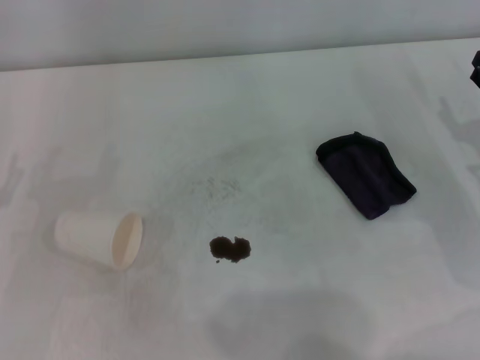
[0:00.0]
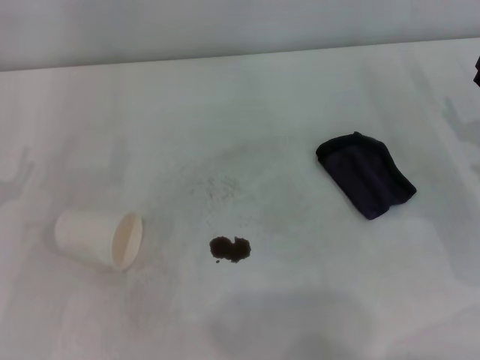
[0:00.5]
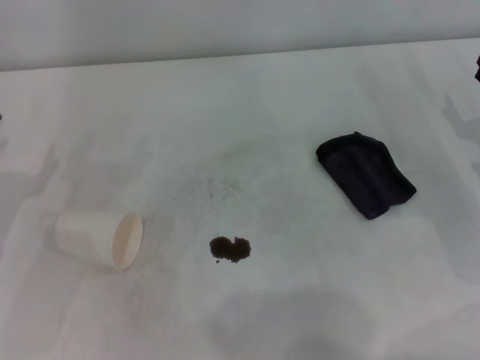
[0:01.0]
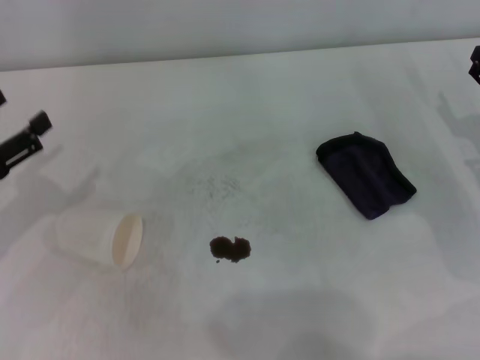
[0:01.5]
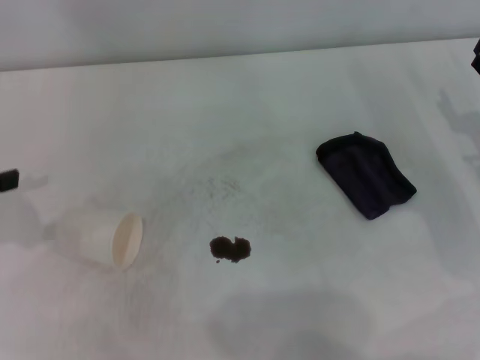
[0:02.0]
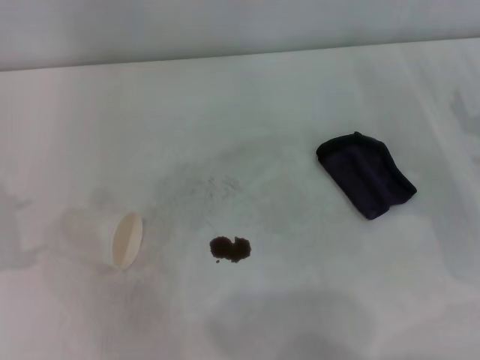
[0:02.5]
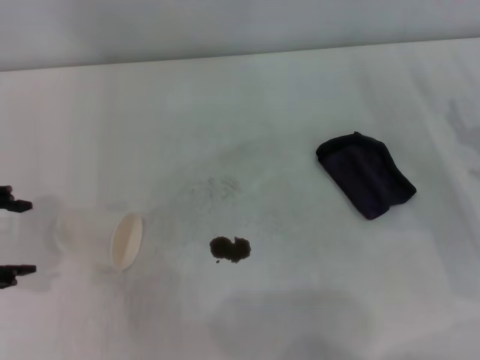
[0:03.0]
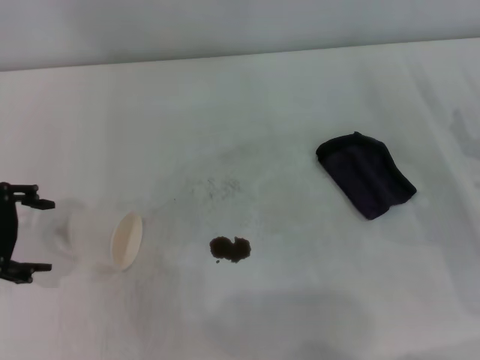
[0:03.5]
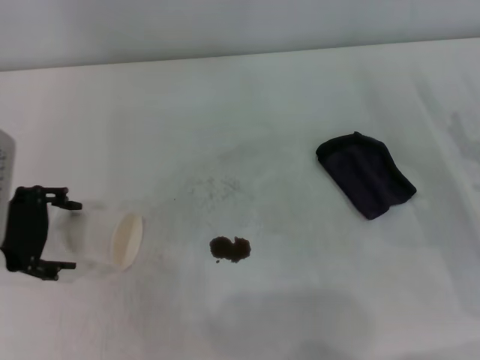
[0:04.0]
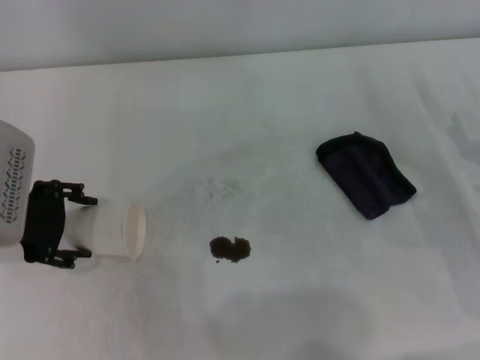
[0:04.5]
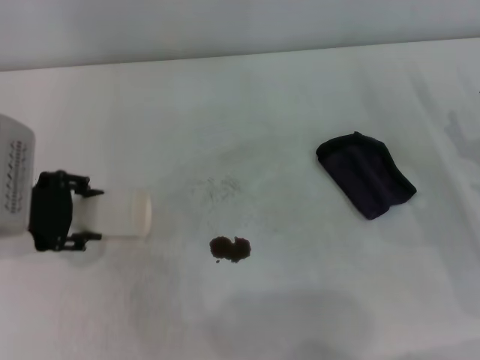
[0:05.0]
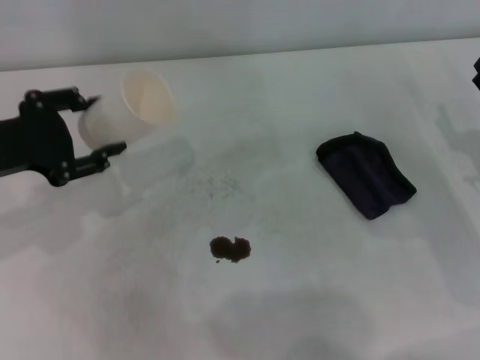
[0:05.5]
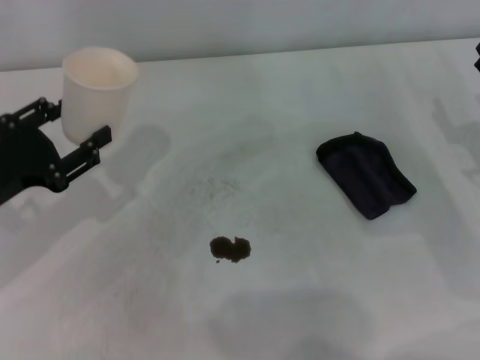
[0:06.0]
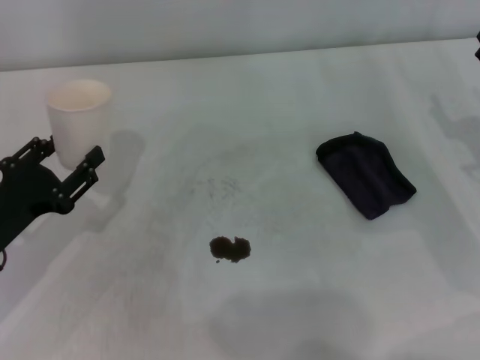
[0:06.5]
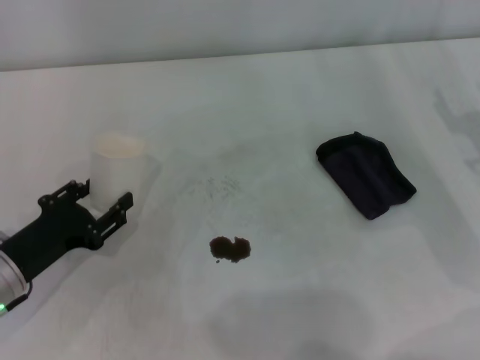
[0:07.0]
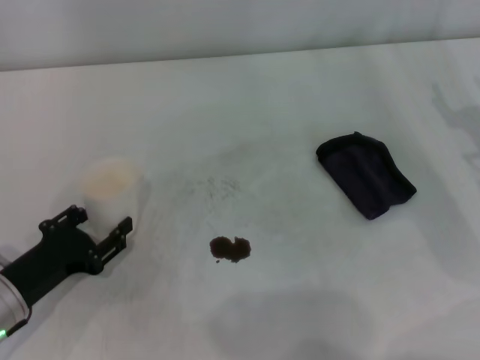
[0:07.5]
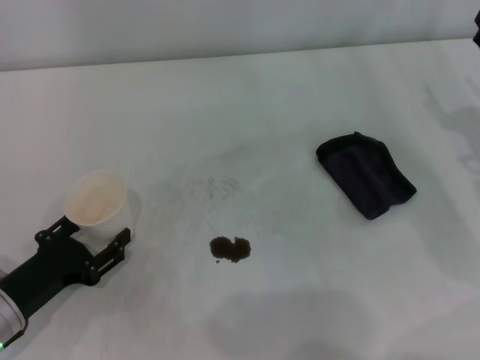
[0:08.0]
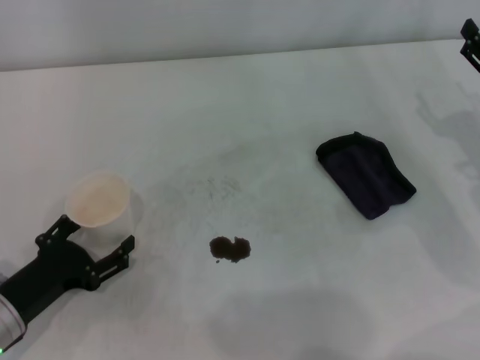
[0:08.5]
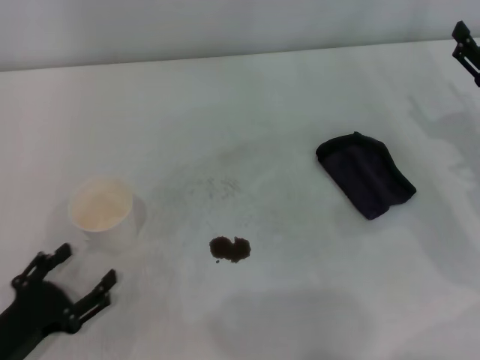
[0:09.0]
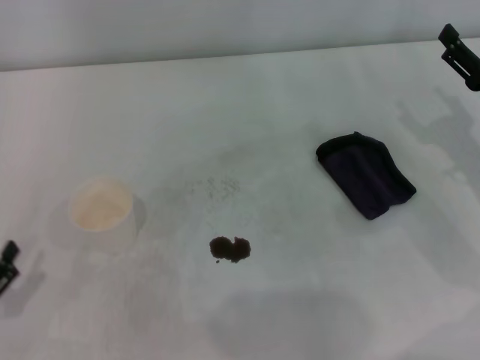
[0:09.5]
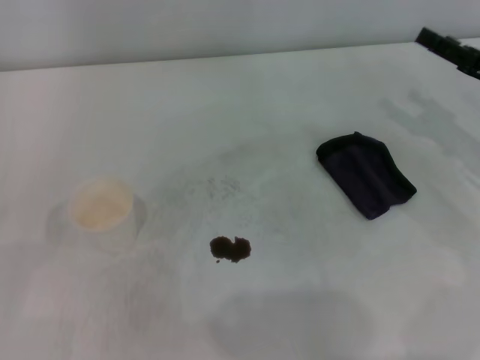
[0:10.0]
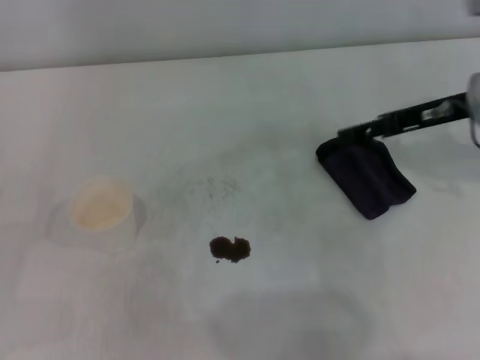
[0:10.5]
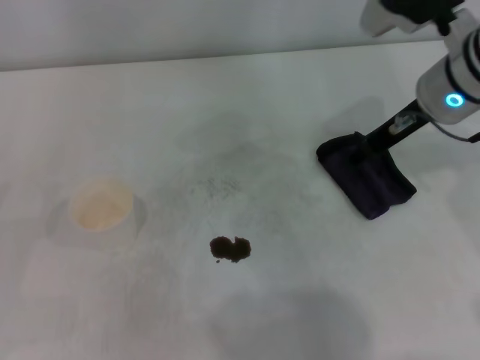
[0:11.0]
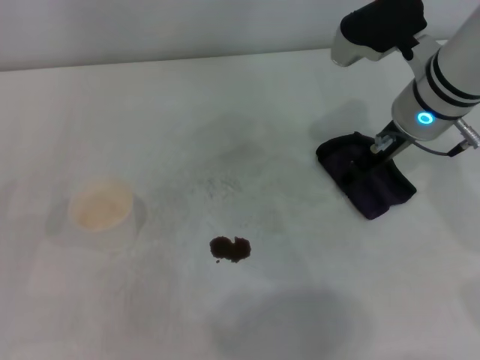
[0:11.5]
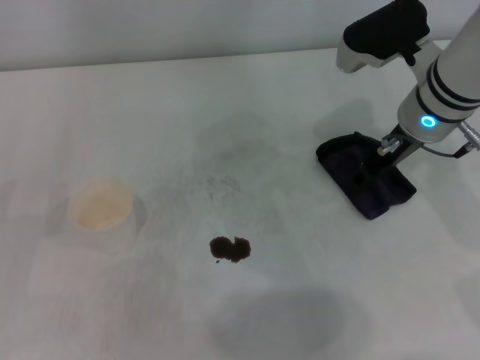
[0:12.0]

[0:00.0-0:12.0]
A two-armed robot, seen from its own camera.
Step, 0:00.0 to 0:04.5: Grasp the paper cup with the left gripper.
Step, 0:05.0 to 0:08.0: Stand the paper cup upright with the left gripper.
0:02.0 to 0:04.0: The left gripper moves to the right, about 10 cm.
0:04.0 to 0:06.0: The left gripper moves roughly 5 cm, and closes up.
0:06.0 to 0:08.0: The left gripper travels downward and backward by some 10 cm, and opens.
0:08.0 to 0:10.0: The left gripper heads to the left and backward, covering about 10 cm, and opens up.
0:10.0 to 0:12.0: The right gripper moves to the left, about 15 cm.

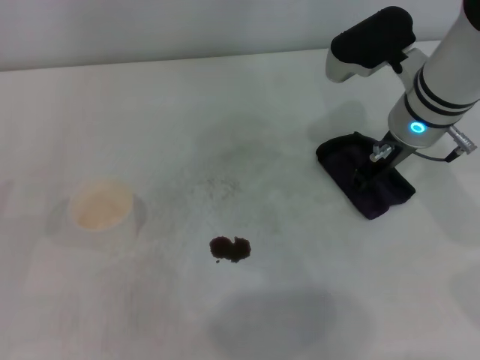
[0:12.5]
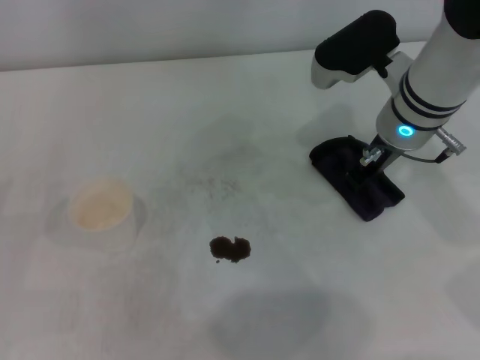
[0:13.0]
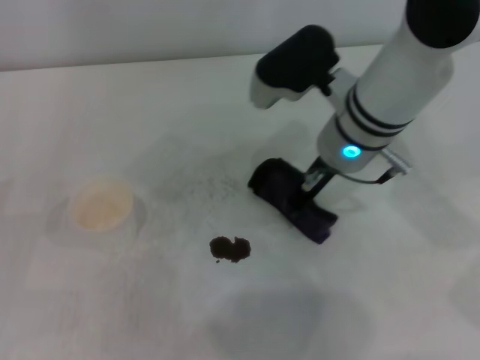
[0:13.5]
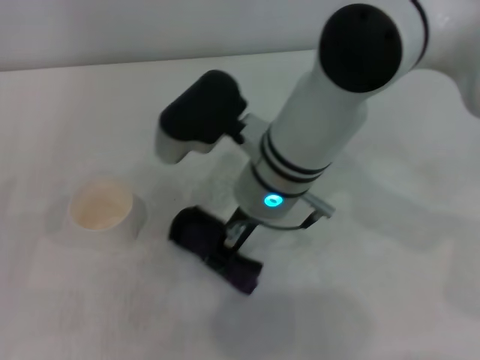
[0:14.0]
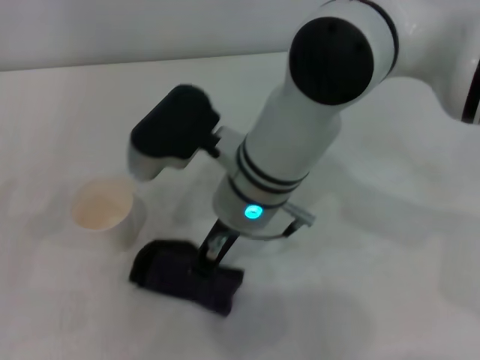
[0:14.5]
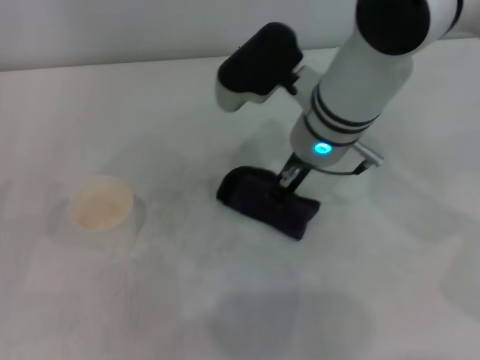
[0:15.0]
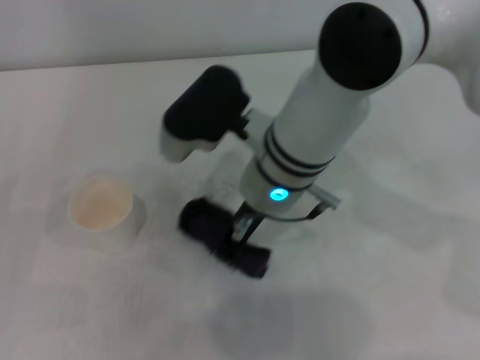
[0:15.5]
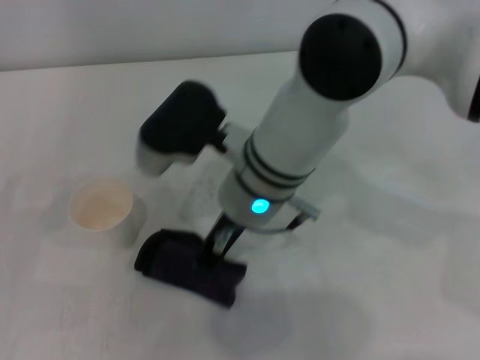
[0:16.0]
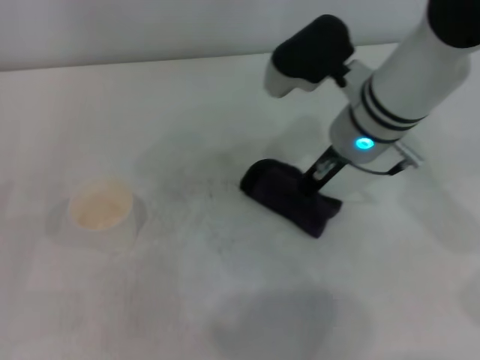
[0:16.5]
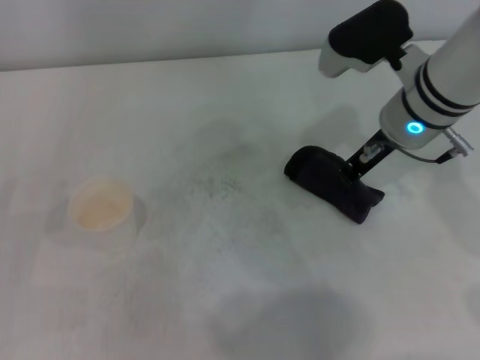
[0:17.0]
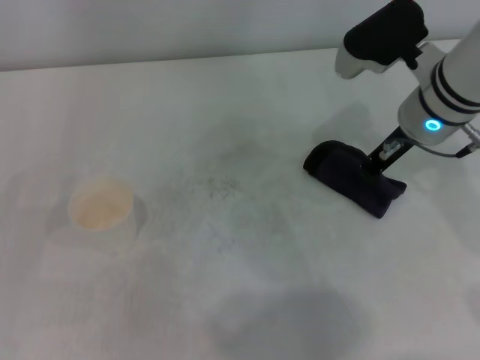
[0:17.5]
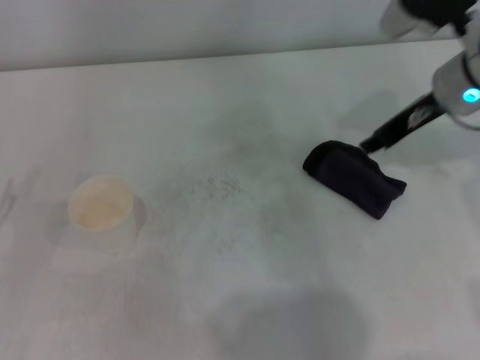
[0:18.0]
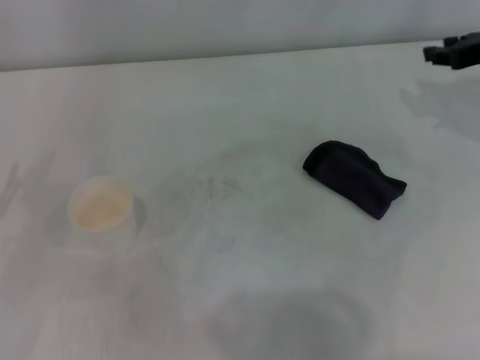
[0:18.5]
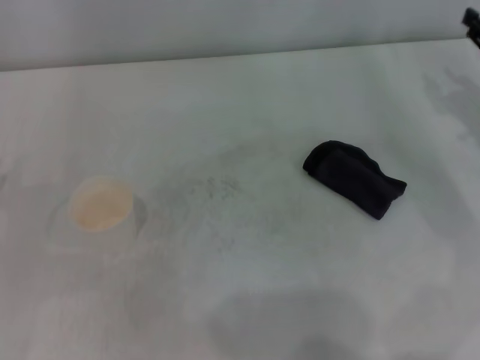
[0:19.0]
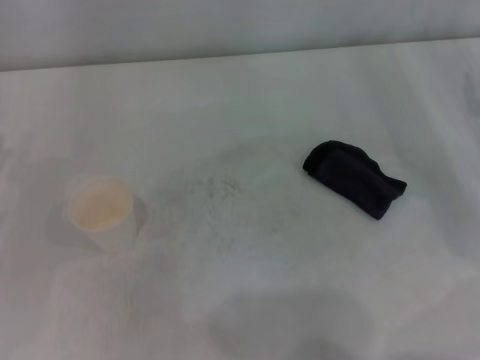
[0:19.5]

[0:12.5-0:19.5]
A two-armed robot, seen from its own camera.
Step, 0:13.0 to 0:16.5: Wipe the stains off the table with the right gripper.
0:12.5 to 0:14.5: The right gripper heads to the left, covering some 15 cm, and closes.
0:16.0 to 0:17.5: The right gripper shifts approximately 15 cm to the right.
0:17.5 to 0:19.5: The right gripper shifts roughly 20 cm to the right, and opens up.

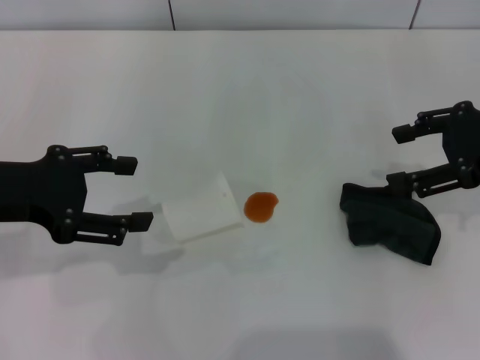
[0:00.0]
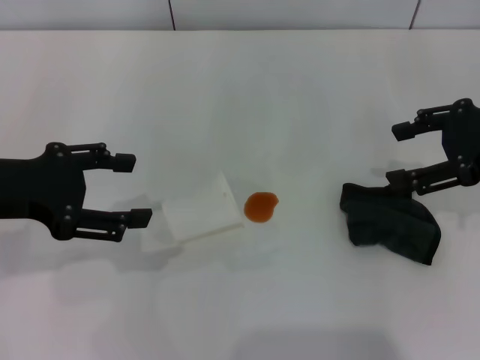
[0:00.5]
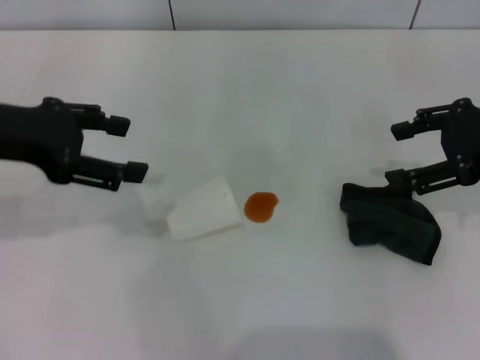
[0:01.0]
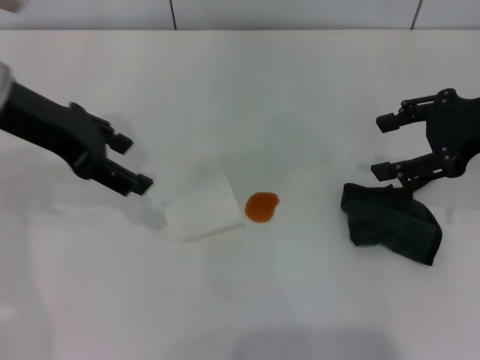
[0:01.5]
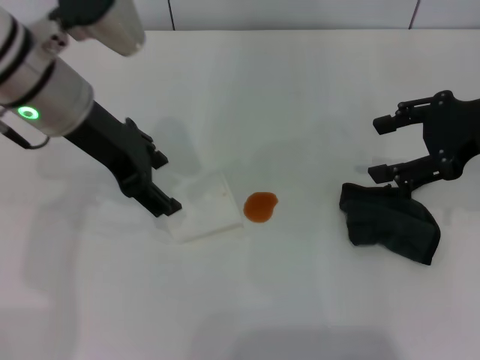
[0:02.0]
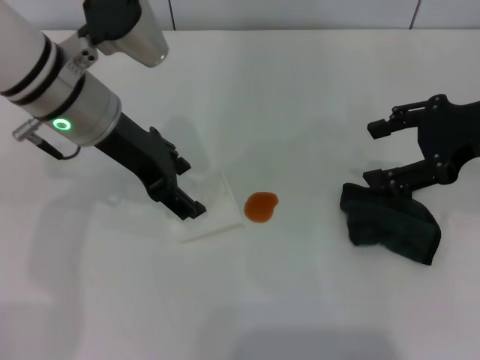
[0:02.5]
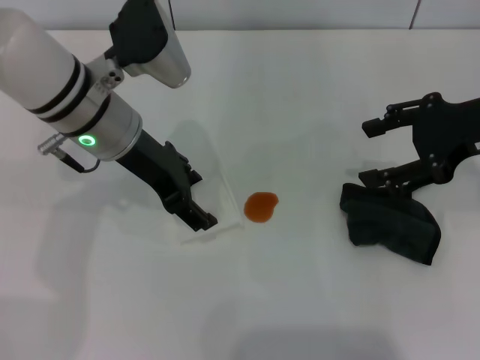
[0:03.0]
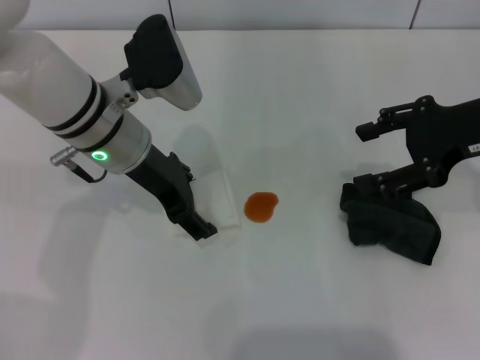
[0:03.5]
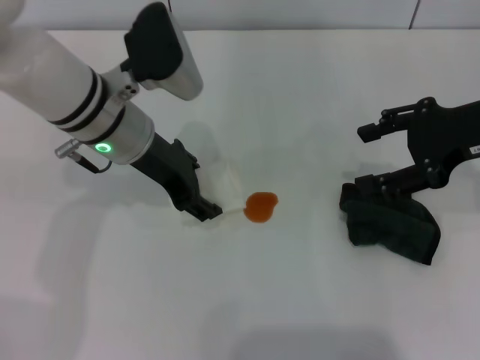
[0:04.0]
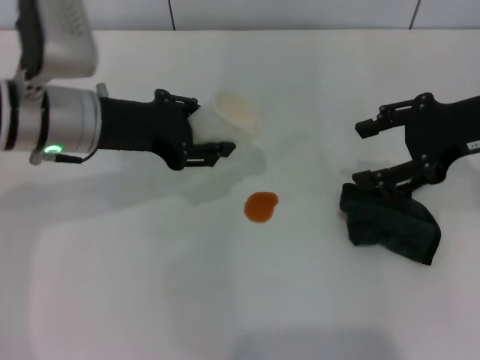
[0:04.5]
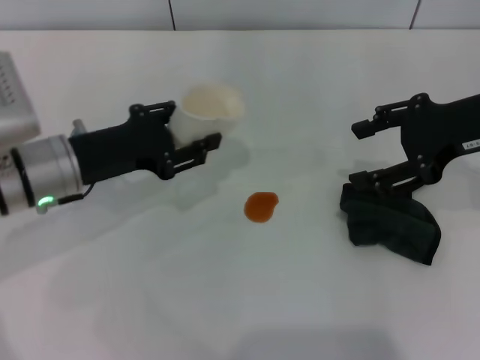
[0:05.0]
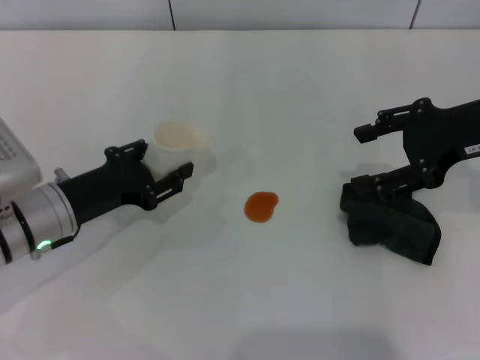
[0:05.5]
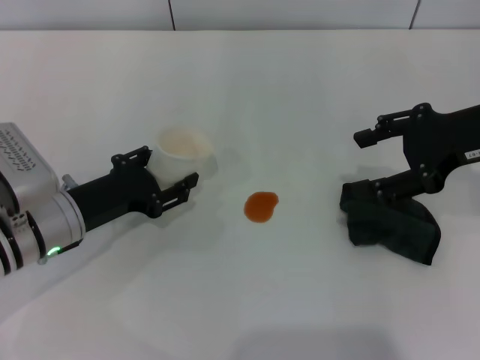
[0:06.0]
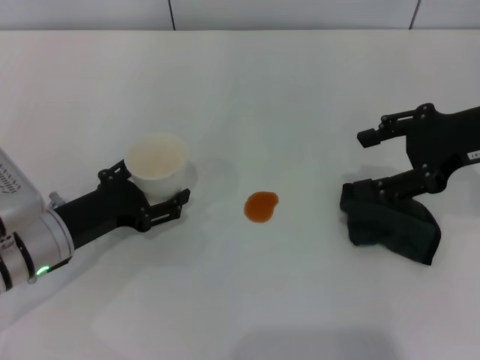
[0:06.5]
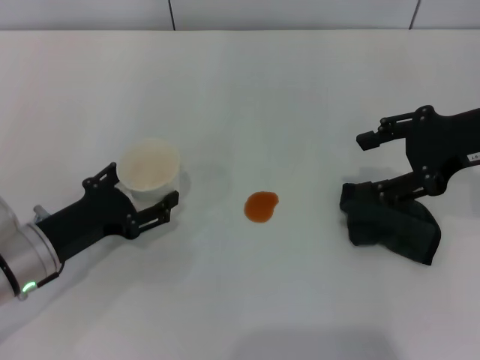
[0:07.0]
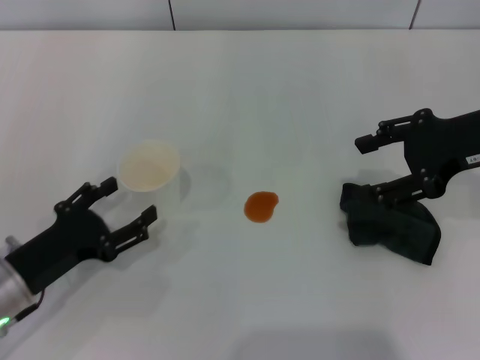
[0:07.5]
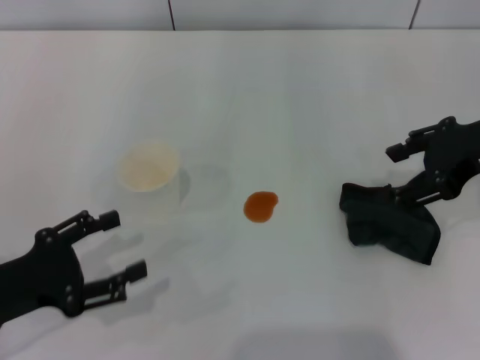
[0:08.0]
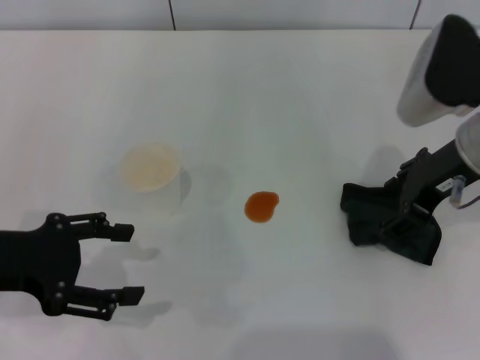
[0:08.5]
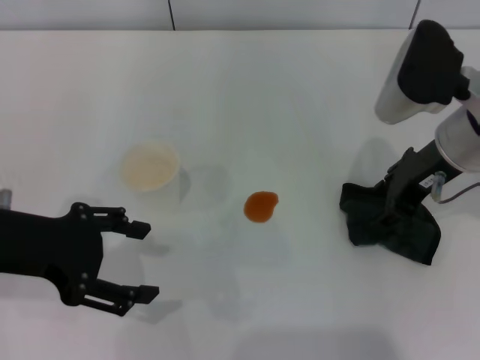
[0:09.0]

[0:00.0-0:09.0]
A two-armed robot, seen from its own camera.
Step, 0:00.0 to 0:03.5: Grasp the paper cup with the left gripper.
Step, 0:04.0 to 0:07.5: Stand the paper cup upright with the left gripper.
0:00.0 to 0:02.0: The left gripper is displaced to the right and forward by roughly 15 cm.
0:02.0 to 0:04.5: The left gripper shifts approximately 5 cm downward, and closes.
0:04.5 to 0:07.0: The left gripper heads downward, backward and to the left, covering some 15 cm, and opens.
0:07.0 to 0:09.0: The left gripper moves upward, approximately 15 cm. Meanwhile the right gripper heads to the left, covering approximately 5 cm.
